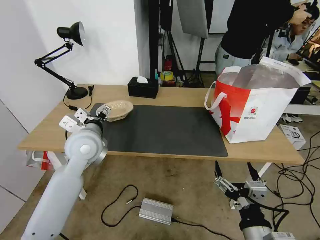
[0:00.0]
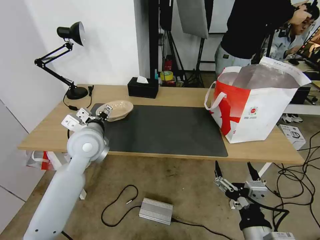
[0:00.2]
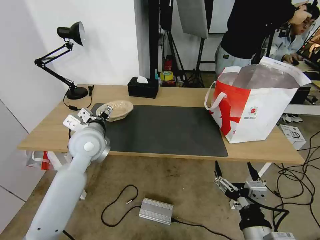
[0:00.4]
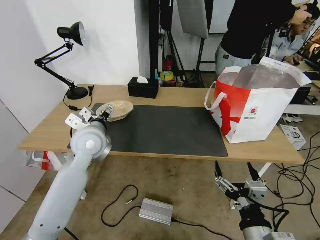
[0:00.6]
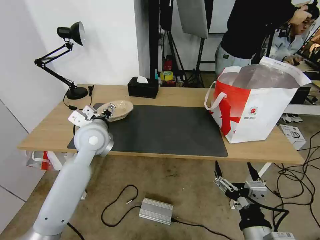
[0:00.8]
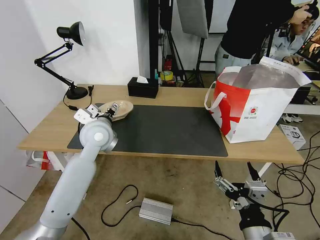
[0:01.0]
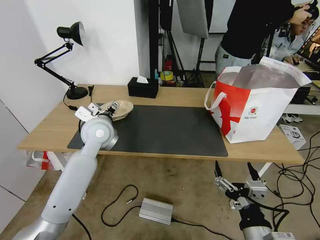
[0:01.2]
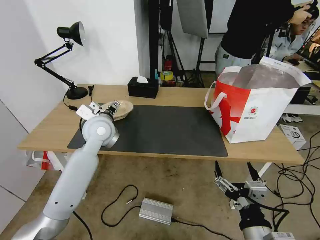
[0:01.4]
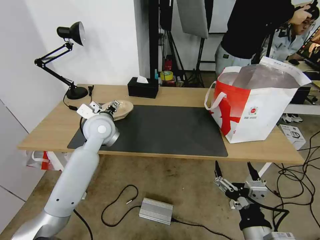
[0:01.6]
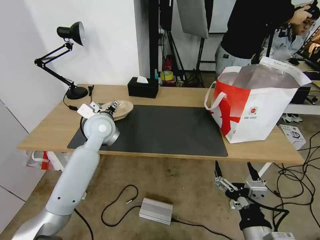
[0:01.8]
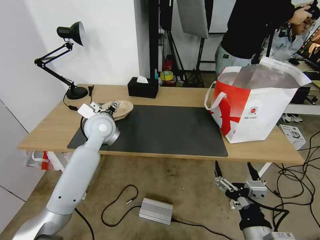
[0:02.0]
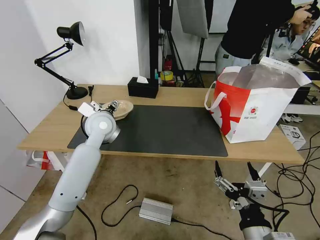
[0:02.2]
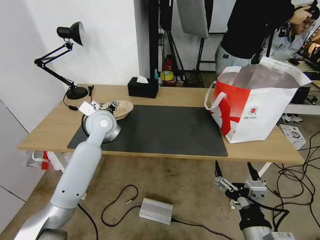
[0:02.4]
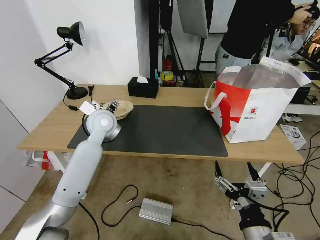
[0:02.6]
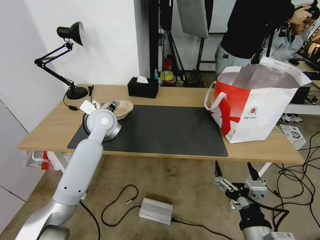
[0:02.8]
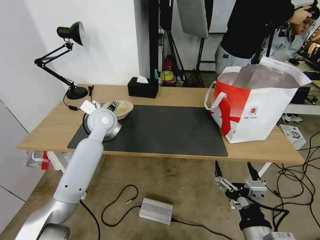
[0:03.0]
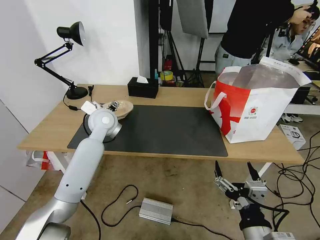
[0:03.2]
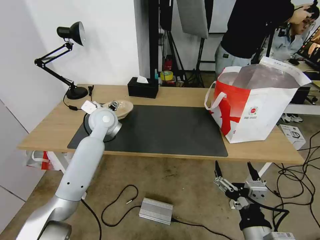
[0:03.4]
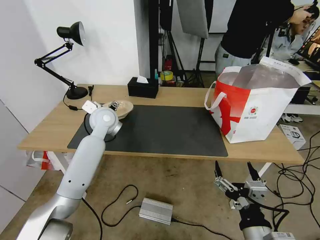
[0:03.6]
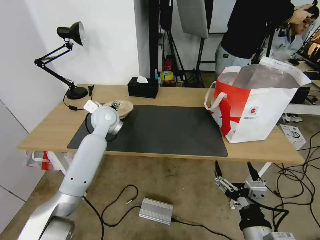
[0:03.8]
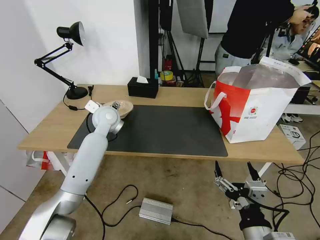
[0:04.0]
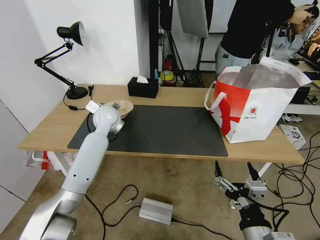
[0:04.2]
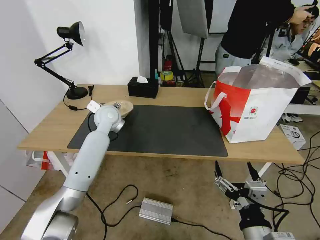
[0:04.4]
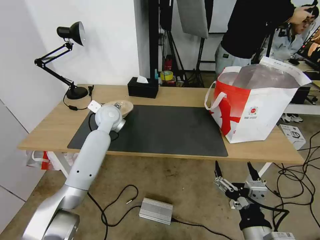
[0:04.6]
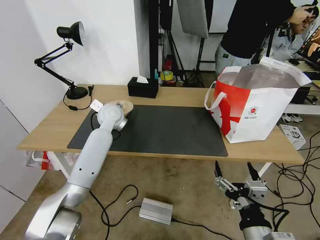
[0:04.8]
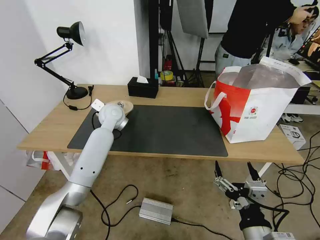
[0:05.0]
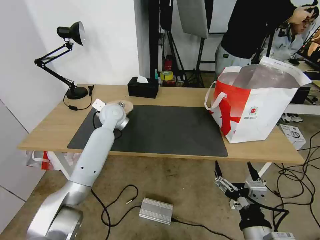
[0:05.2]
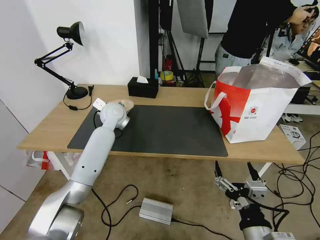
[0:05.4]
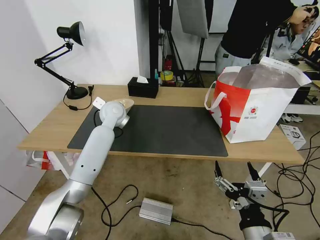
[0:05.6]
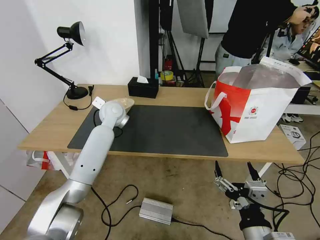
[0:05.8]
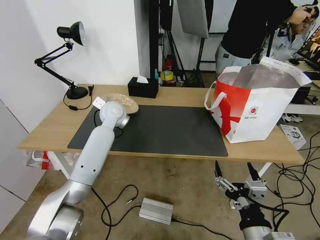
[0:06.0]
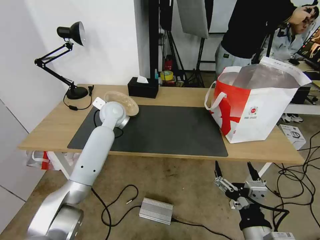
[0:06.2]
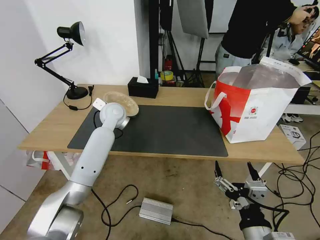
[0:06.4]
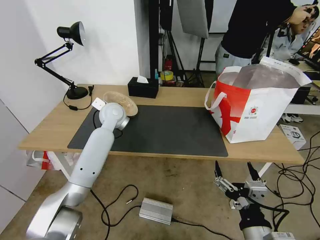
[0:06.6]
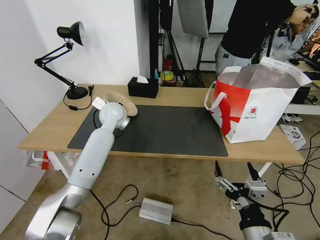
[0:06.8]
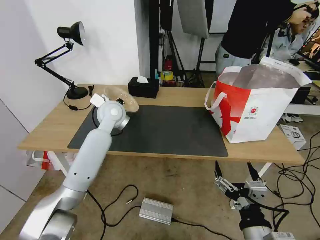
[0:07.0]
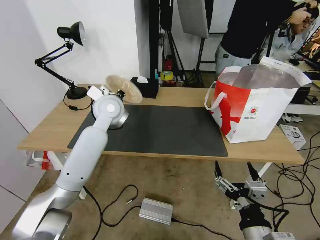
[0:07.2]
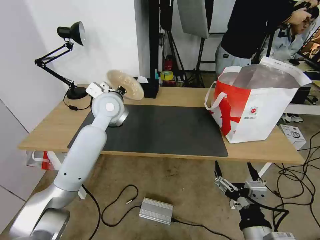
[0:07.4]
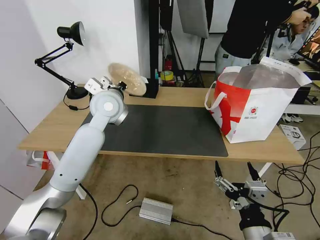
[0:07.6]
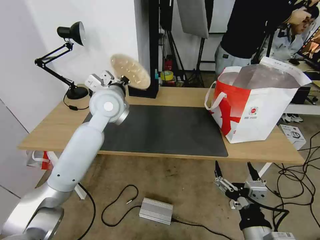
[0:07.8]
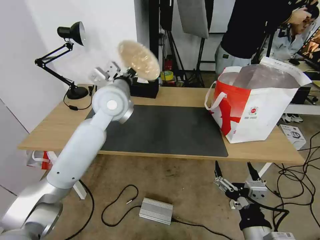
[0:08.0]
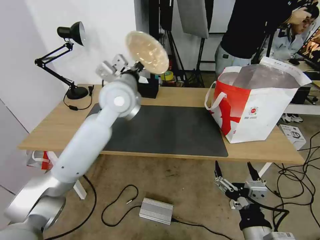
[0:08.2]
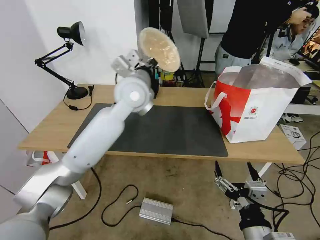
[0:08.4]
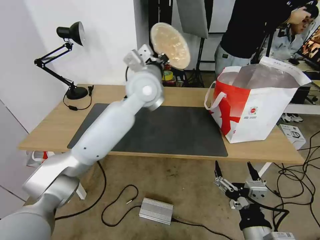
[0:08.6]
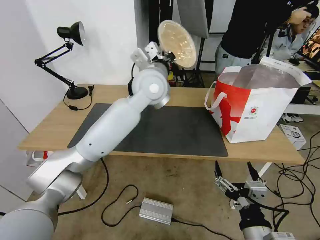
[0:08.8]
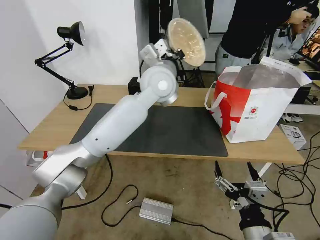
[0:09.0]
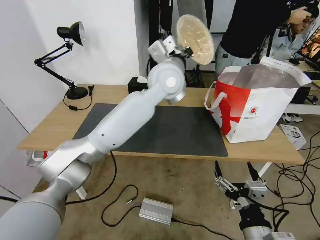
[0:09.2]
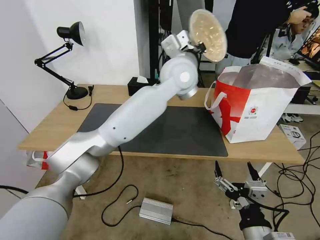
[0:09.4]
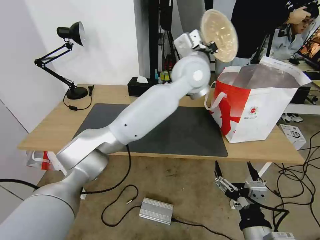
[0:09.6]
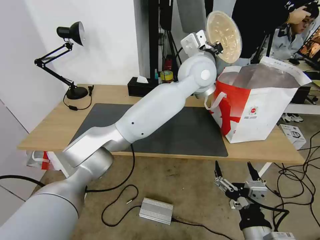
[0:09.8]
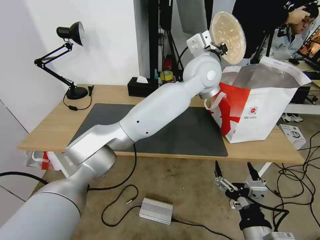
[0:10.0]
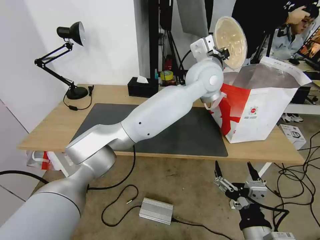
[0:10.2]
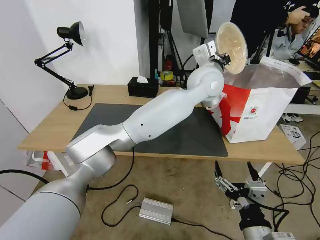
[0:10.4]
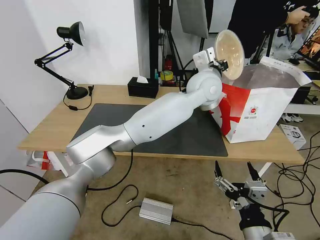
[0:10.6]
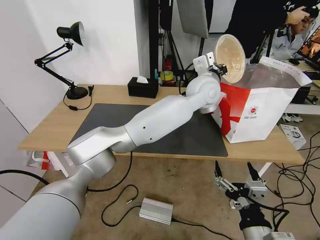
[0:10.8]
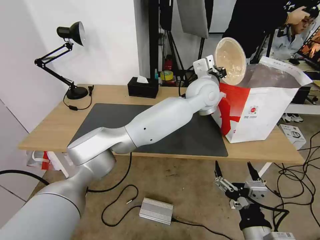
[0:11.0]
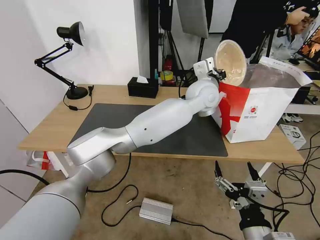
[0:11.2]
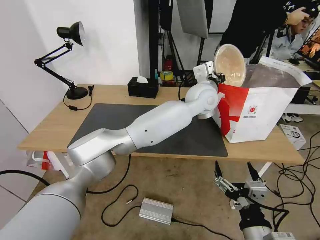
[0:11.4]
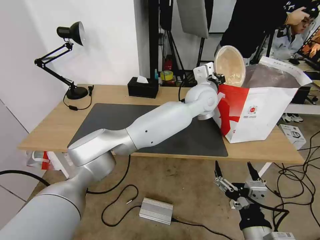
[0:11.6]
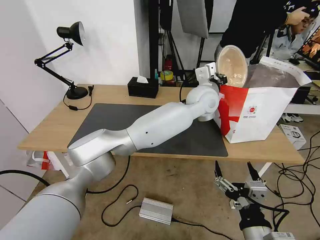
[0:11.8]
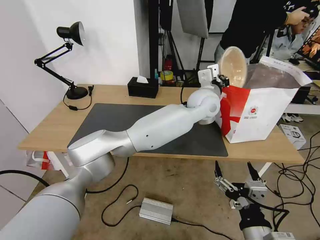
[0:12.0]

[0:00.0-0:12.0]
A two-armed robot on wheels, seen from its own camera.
Task of the whole recording: Pick up the trash from the table and place it into the takeout bag.
0:00.0 to 0:01.6: The left gripper travels forward by about 5 cm.
0:01.6 to 0:03.0: The grippers stay close to where they were, moving slightly.
0:03.0 to 0:04.4: The left gripper changes place by approximately 5 cm.
0:04.4 to 0:06.0: The left gripper closes.
0:06.0 to 0:07.6: The left gripper shifts approximately 10 cm upward and backward.
0:07.6 to 0:09.0: The left gripper is displaced to the right and upward by about 15 cm.
0:09.0 to 0:10.4: The left gripper goes approximately 15 cm to the right.
0:10.4 to 0:12.0: The left gripper shifts some 5 cm downward.

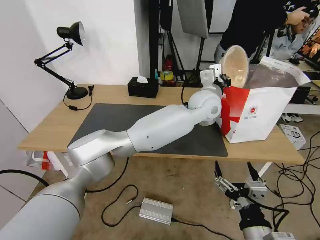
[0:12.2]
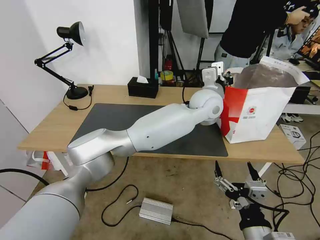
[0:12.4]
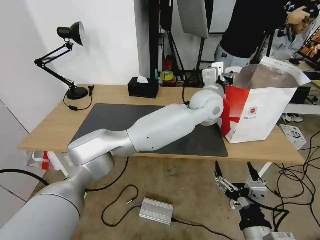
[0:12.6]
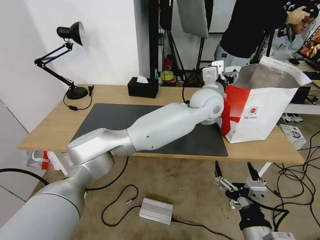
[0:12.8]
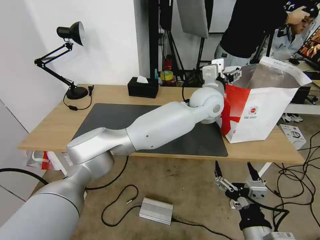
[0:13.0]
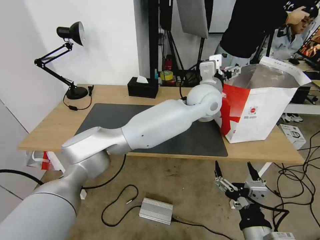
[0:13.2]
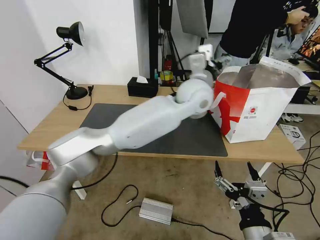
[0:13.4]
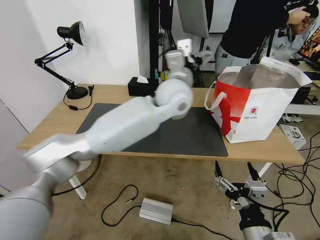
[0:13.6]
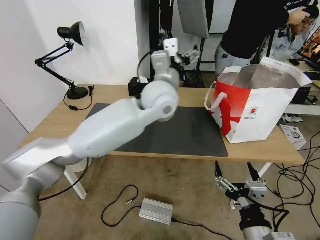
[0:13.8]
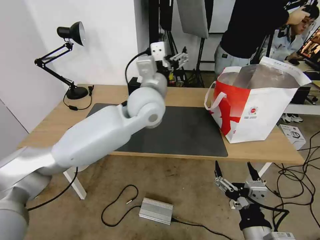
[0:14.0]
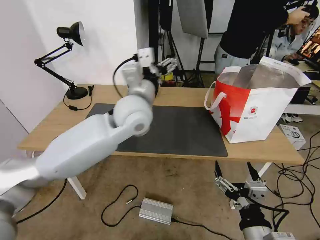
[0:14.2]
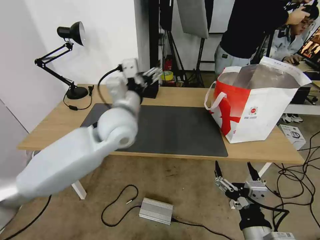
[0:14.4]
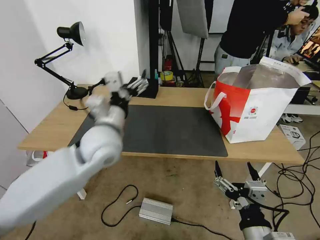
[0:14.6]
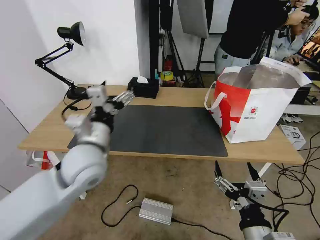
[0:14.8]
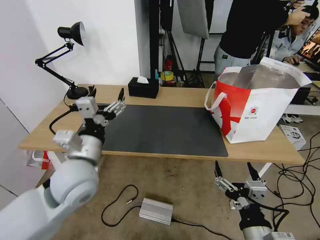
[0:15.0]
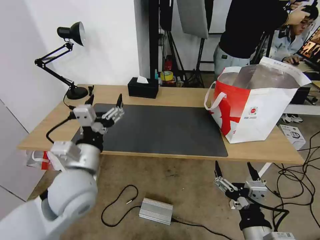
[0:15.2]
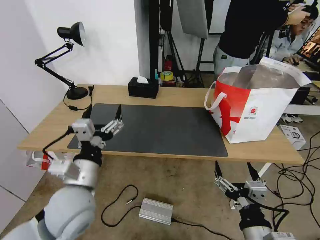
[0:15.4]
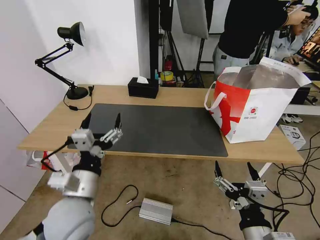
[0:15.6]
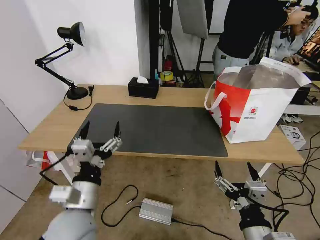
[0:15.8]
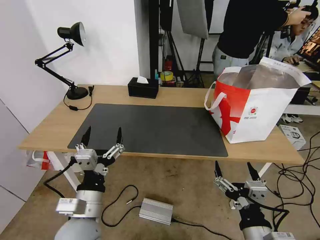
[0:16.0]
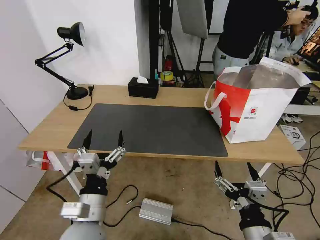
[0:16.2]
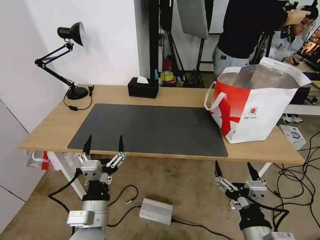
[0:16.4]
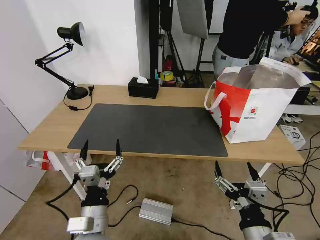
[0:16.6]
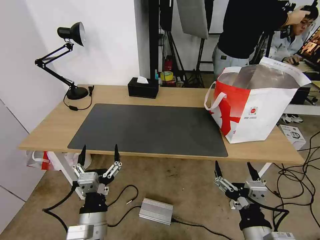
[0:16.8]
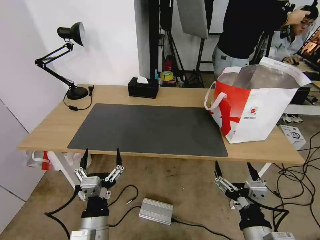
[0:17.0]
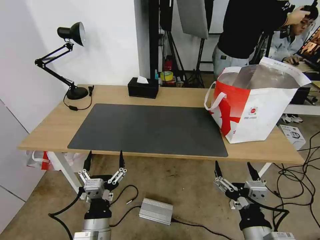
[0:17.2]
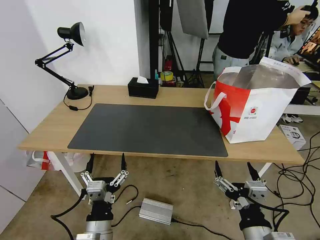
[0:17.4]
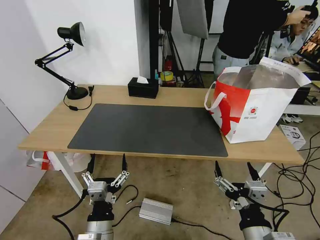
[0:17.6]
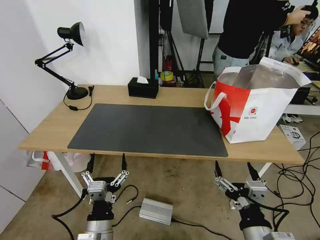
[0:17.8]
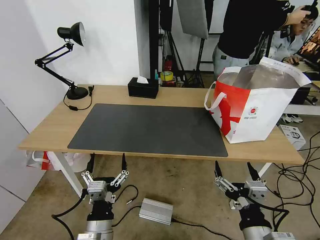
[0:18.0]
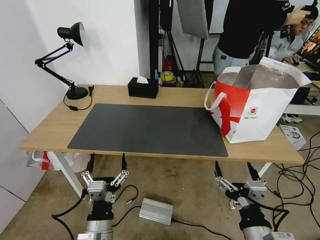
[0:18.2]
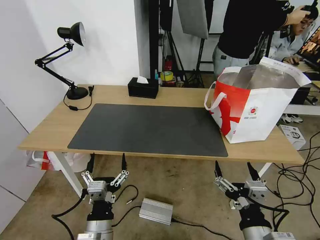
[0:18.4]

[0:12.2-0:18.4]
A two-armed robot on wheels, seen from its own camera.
Task of the whole recording: Pick up the trash from the table and place it into the takeout bag.
0:12.2 to 0:13.8: The left gripper goes some 15 cm to the left, and opens.
0:13.8 to 0:15.4: The left gripper travels backward, to the left and downward by about 30 cm.
0:15.4 to 0:16.8: The left gripper goes some 15 cm downward and backward.
0:16.8 to 0:18.4: The grippers stay close to where they were, moving slightly.

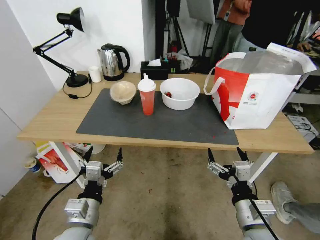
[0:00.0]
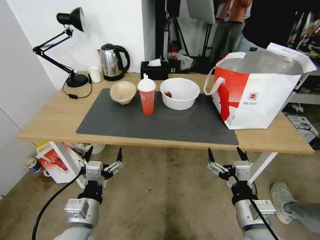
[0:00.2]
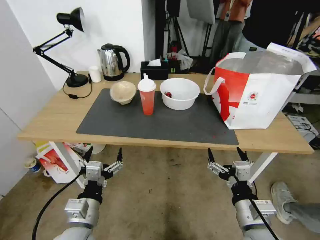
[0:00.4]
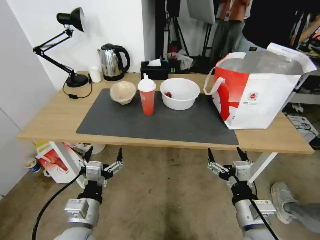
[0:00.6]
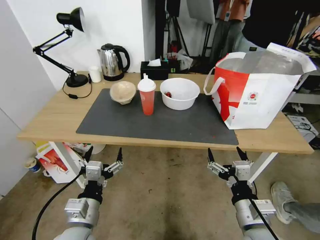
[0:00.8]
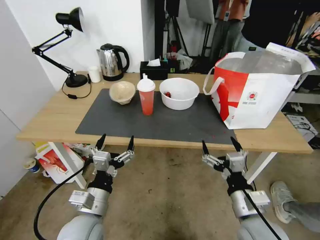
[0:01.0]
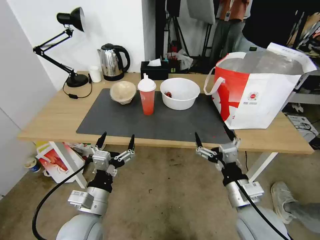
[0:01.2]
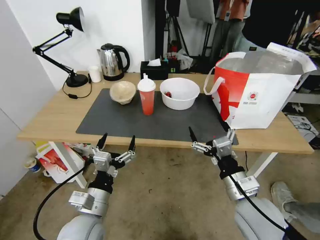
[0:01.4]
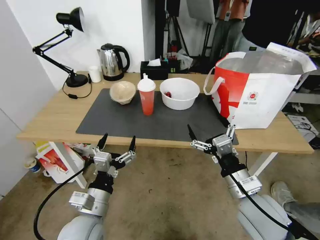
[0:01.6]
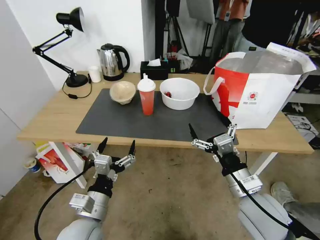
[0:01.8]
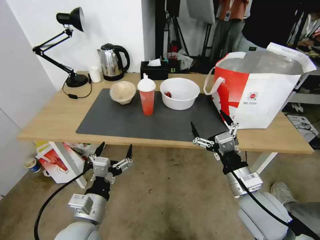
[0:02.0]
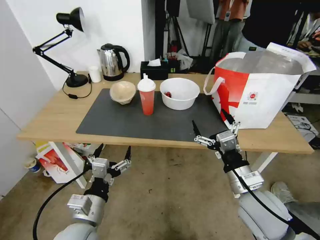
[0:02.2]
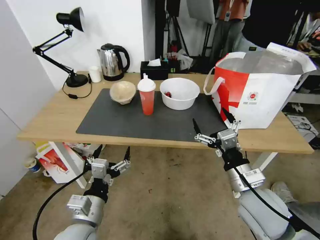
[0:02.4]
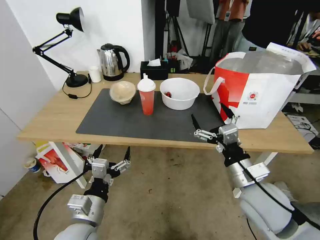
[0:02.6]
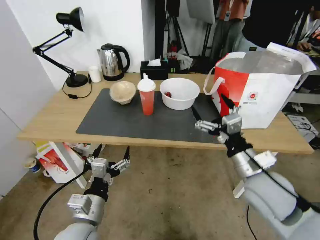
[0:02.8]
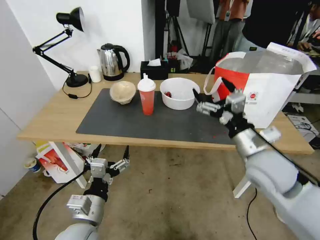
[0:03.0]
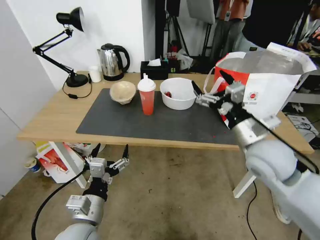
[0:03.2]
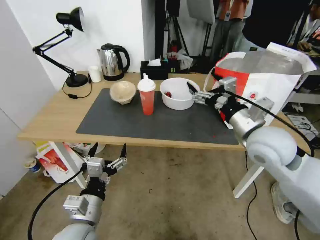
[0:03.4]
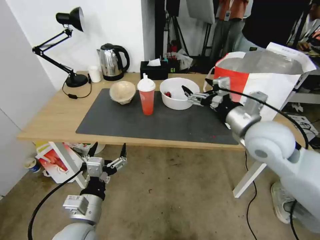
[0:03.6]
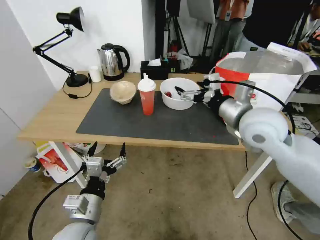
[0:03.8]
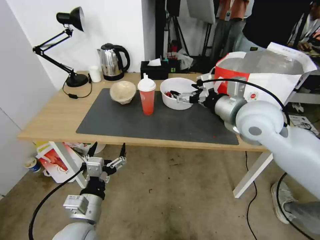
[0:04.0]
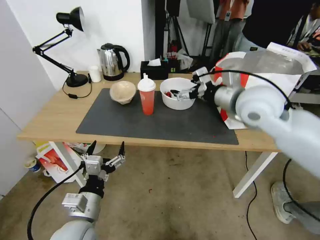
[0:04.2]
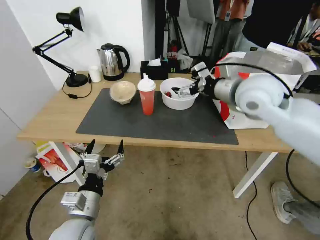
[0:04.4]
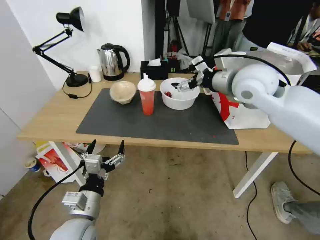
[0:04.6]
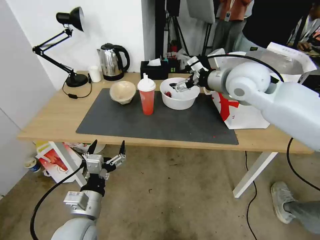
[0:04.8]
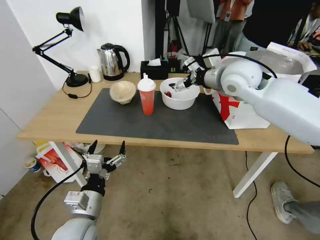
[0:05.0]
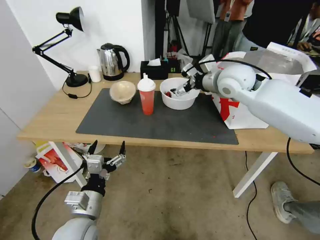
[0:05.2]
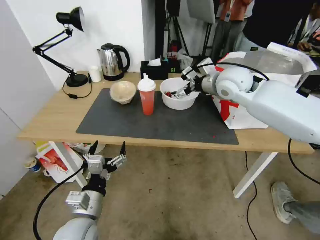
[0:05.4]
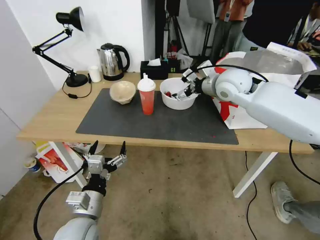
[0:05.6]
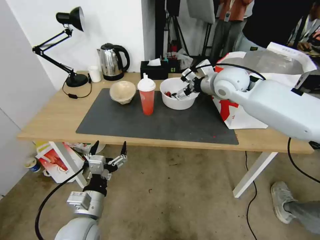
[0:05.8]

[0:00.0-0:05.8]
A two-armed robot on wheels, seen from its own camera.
Task of the whole recording: Pick up the trash from the table and place it into the takeout bag.
0:01.4 to 0:02.8: The right gripper ends up roughly 5 cm from where it was.
0:02.8 to 0:04.4: The right gripper is displaced forward and upward by roughly 25 cm.
0:04.4 to 0:05.8: The right gripper goes about 10 cm forward.
